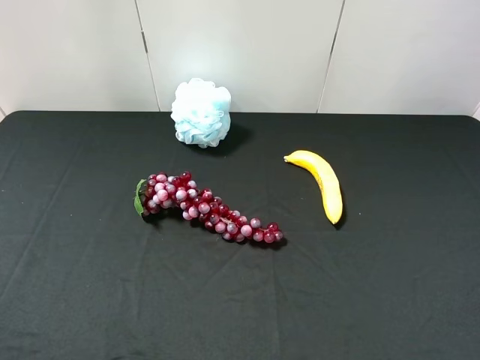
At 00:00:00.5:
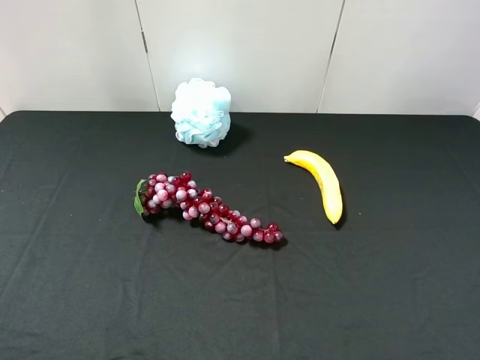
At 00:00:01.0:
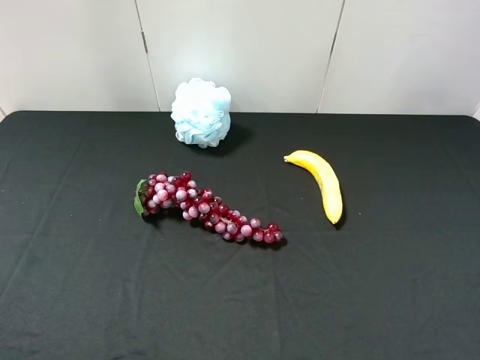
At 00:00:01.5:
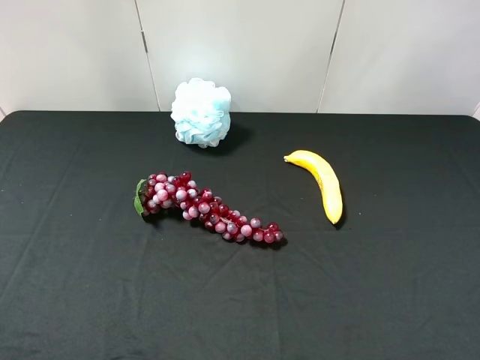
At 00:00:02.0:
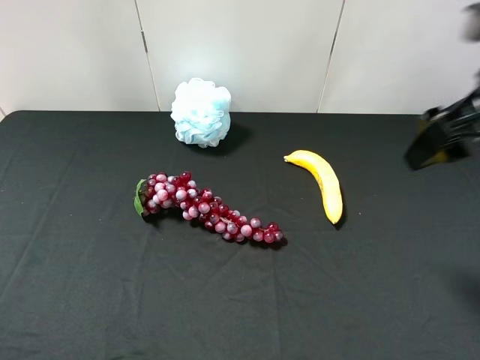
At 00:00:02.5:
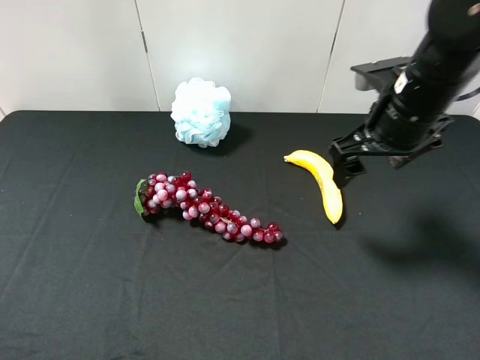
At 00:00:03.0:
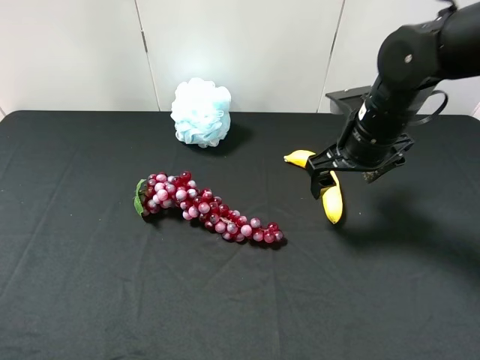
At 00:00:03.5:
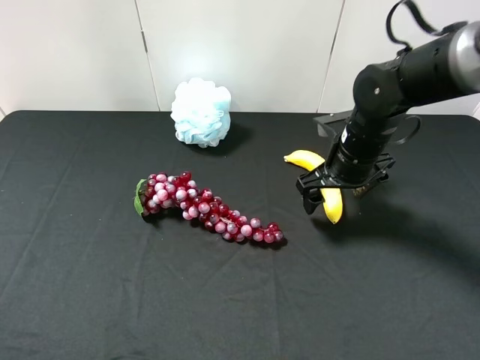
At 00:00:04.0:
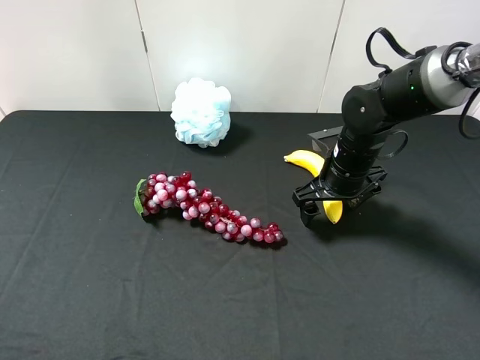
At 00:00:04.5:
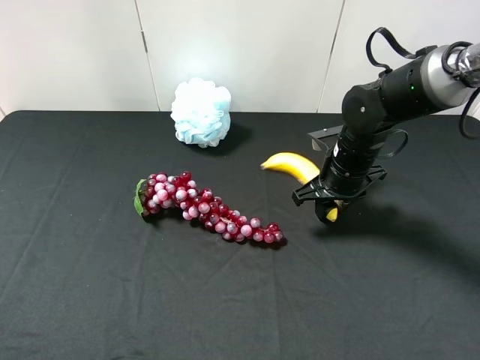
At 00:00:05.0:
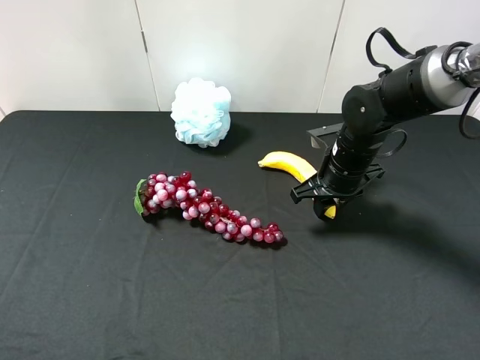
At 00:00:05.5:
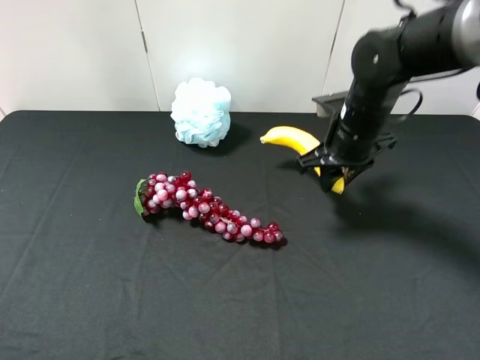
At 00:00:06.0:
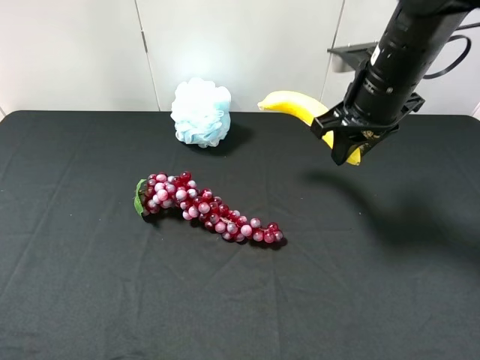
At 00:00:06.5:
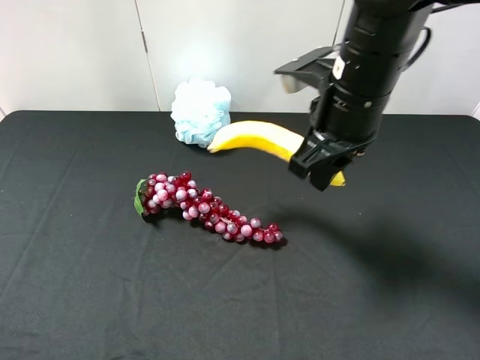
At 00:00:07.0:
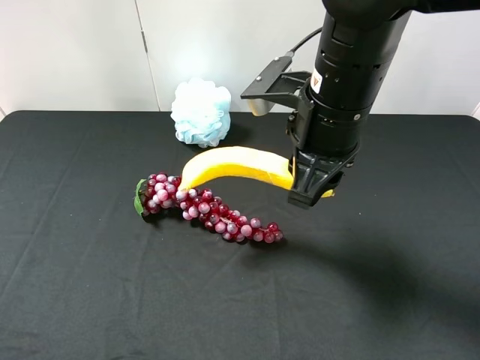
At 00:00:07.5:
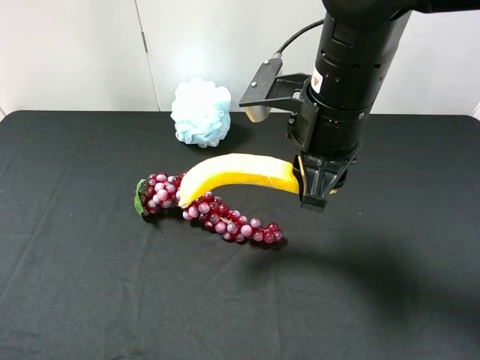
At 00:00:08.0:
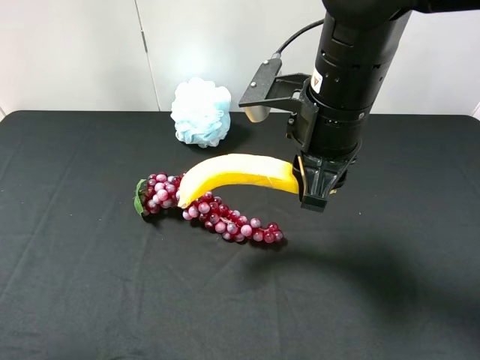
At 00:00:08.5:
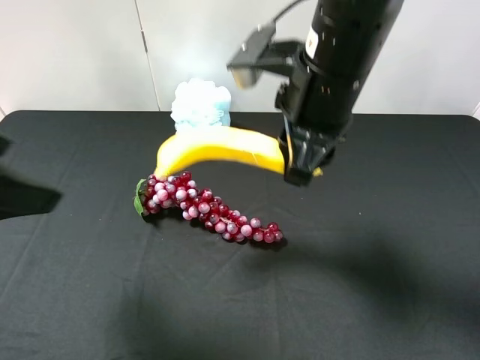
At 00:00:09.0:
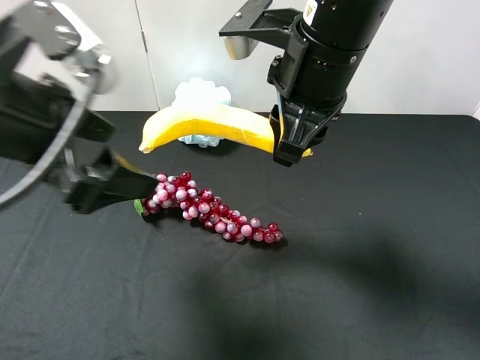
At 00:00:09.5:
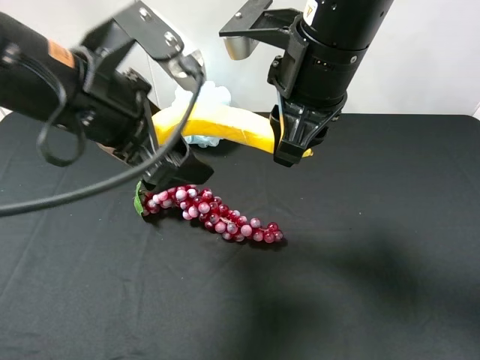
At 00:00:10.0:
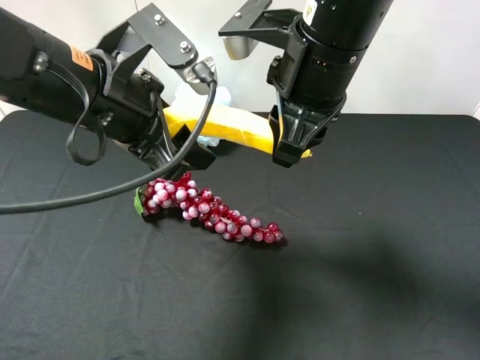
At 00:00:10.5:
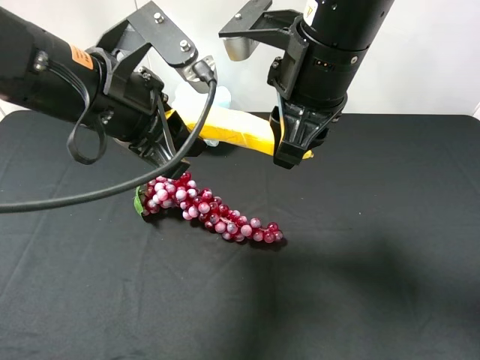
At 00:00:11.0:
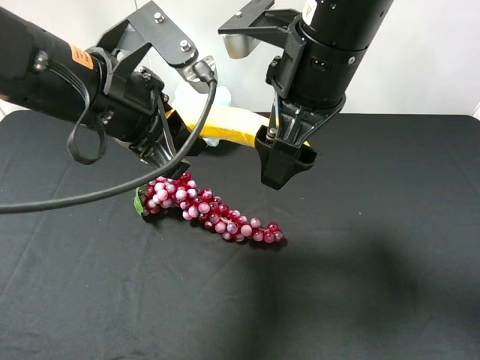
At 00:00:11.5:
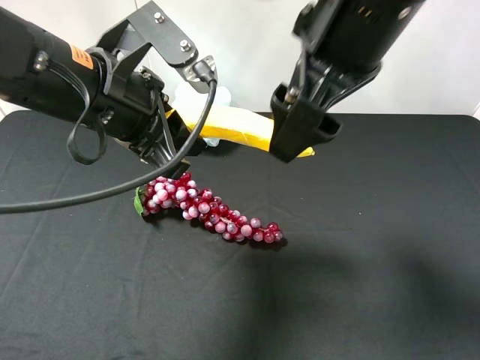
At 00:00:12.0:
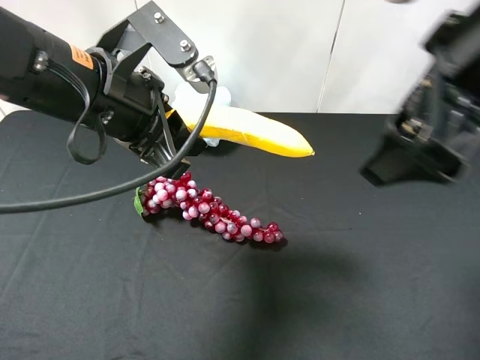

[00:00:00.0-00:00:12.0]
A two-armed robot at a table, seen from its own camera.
Task of the whole recording: use the right gripper to pick up the item and transfer it from the right gripper to the left gripper.
Step, 00:00:00.0 to 00:00:04.0: Use the right gripper to grab the banana on the right side of the table.
Step, 00:00:04.5 to 00:00:11.0: Pass the banana to the left gripper.
00:00:00.0 to 00:00:02.0: The right gripper moves forward, about 20 cm.
00:00:02.0 to 00:00:04.0: The right gripper heads downward and forward, covering roughly 20 cm.
00:00:04.0 to 00:00:06.0: The right gripper travels upward by approximately 15 cm, and closes its fingers.
00:00:06.0 to 00:00:08.0: The left gripper heads forward and upward, covering approximately 10 cm. The right gripper travels to the left and backward by roughly 10 cm.
00:00:08.0 to 00:00:10.0: The right gripper moves roughly 5 cm; the left gripper heads to the right and forward, covering roughly 25 cm, and closes up.
00:00:10.0 to 00:00:12.0: The left gripper closes its fingers. Meanwhile the right gripper goes some 15 cm to the right and backward, and opens up.

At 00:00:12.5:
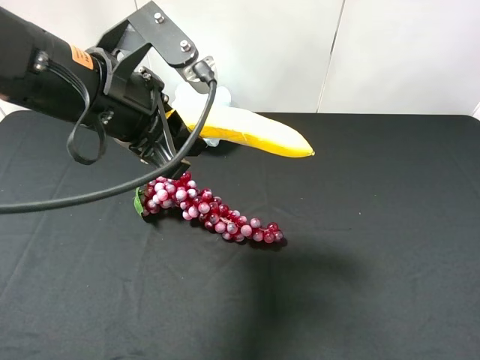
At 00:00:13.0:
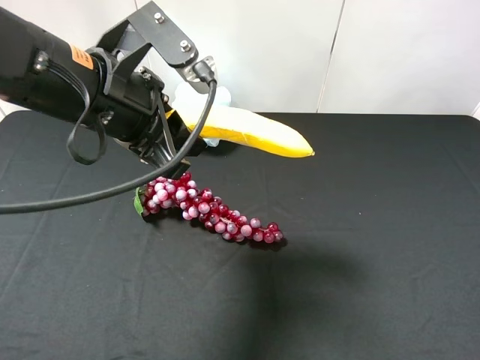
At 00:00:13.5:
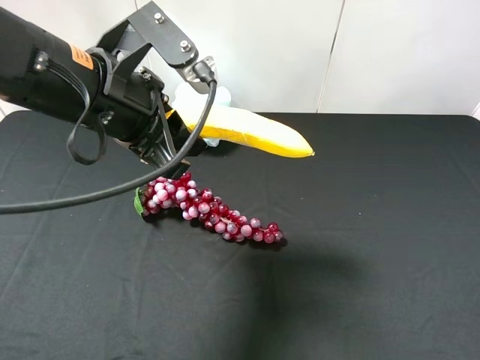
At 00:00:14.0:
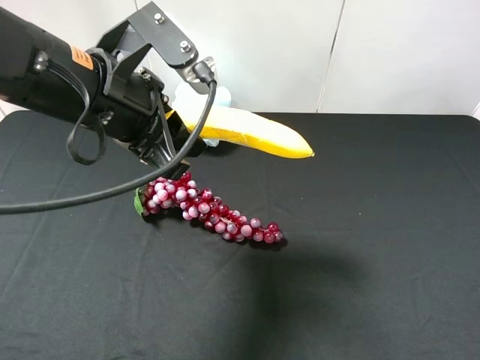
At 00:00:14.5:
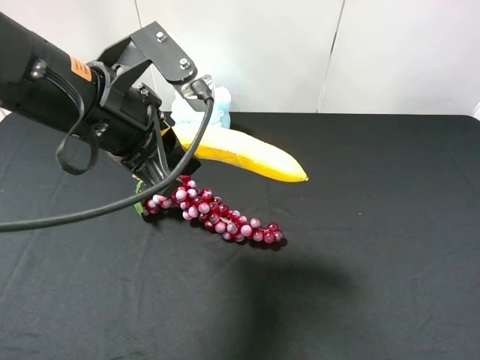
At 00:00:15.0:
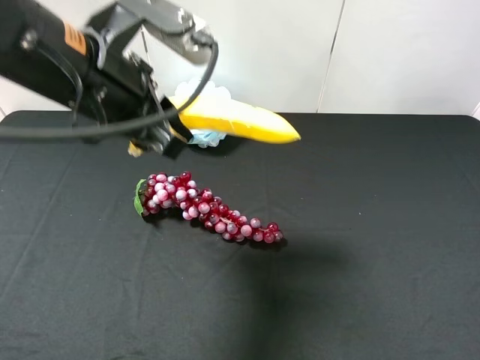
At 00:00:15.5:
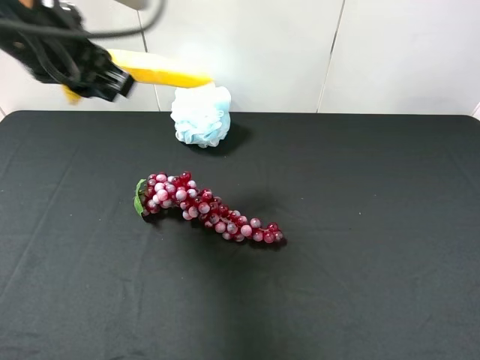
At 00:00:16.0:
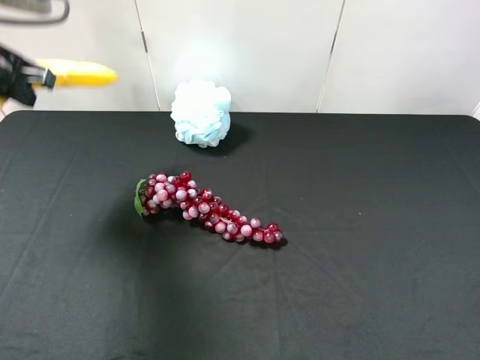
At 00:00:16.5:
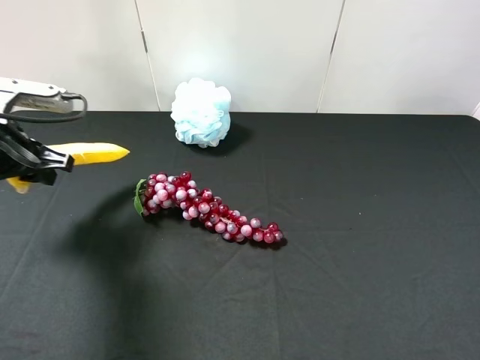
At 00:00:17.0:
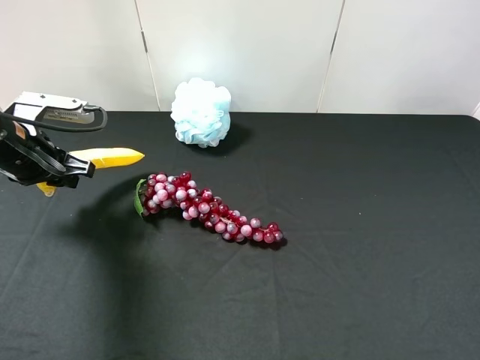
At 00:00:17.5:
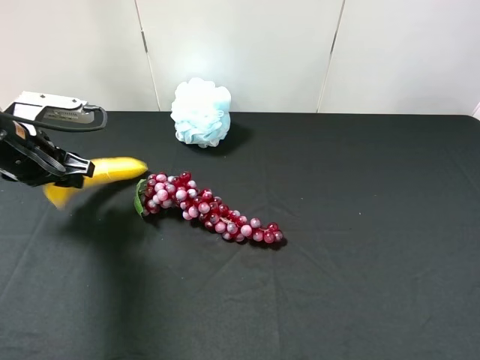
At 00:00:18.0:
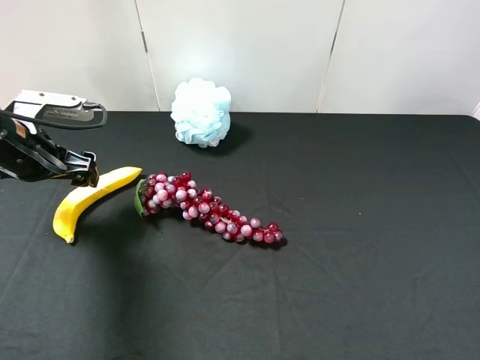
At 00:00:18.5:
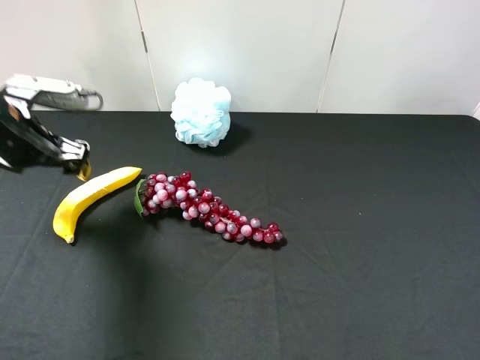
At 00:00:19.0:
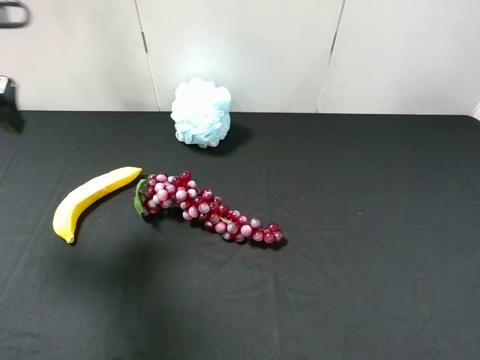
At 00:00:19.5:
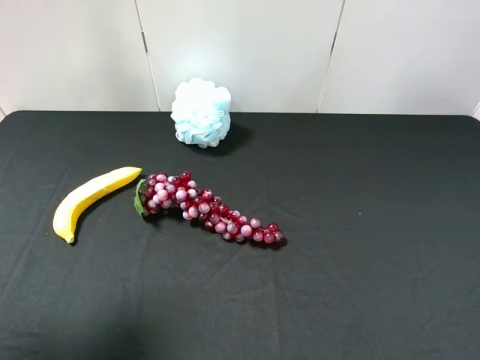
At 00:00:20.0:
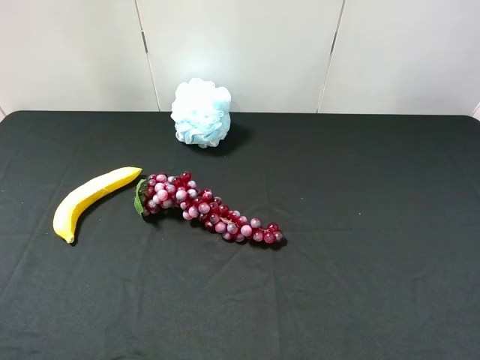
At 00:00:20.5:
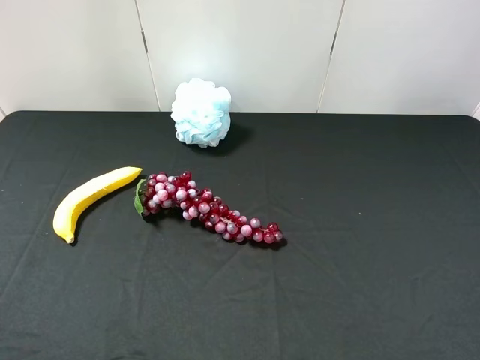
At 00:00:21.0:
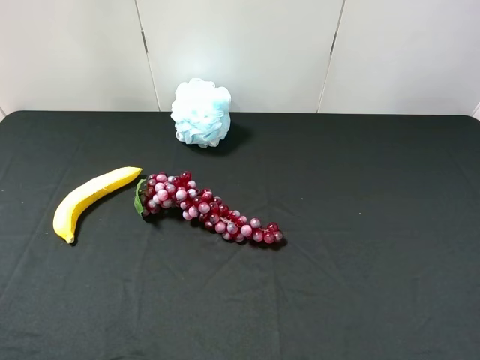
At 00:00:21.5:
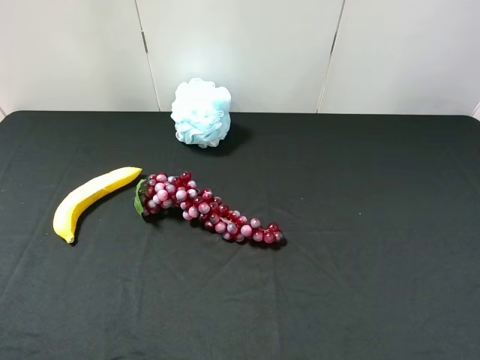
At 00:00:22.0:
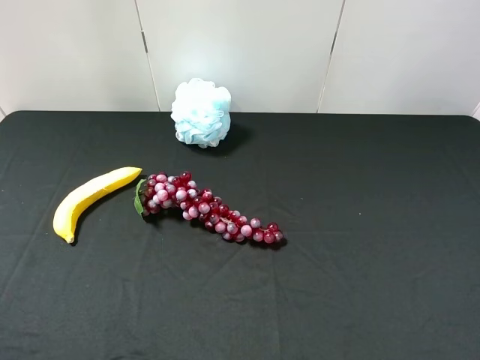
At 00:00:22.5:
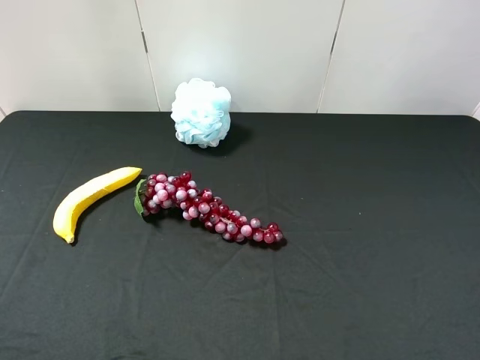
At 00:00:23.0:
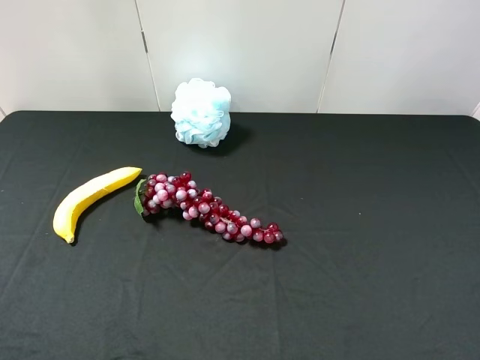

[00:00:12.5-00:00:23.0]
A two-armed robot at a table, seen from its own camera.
Task of the whole recording: use the right gripper to pick up the item and transfer it from the right gripper to the left gripper.
Step, 00:00:12.5 to 00:00:17.5: The left gripper places banana on the left side of the table.
00:00:12.5 to 00:00:14.5: The right gripper heads backward, covering roughly 5 cm.
00:00:14.5 to 00:00:16.5: The left gripper moves to the left and downward, about 20 cm.
00:00:16.5 to 00:00:19.0: The left gripper heads upward, covering about 15 cm, and opens.
00:00:19.0 to 00:00:21.0: The left gripper is displaced backward by about 25 cm.
